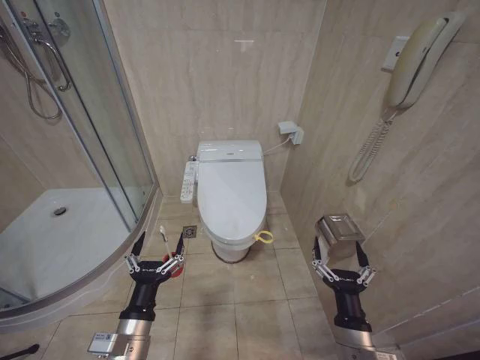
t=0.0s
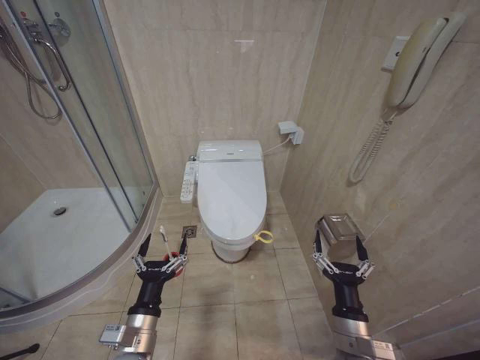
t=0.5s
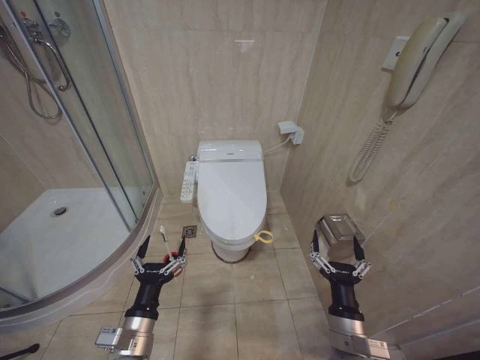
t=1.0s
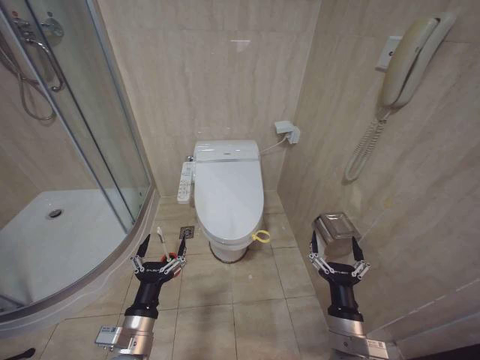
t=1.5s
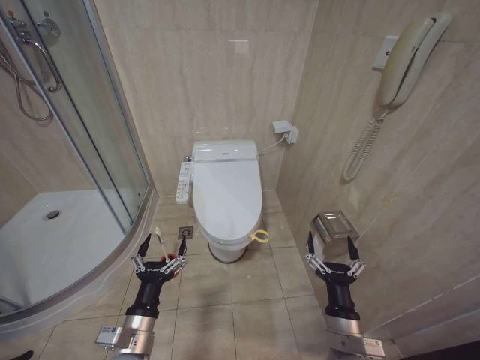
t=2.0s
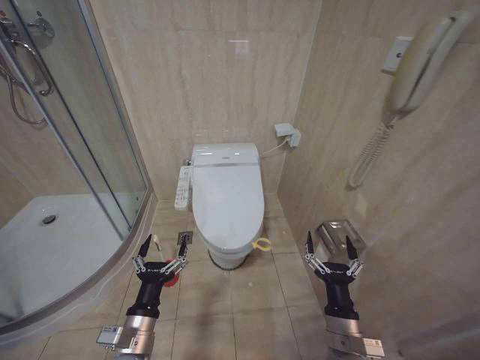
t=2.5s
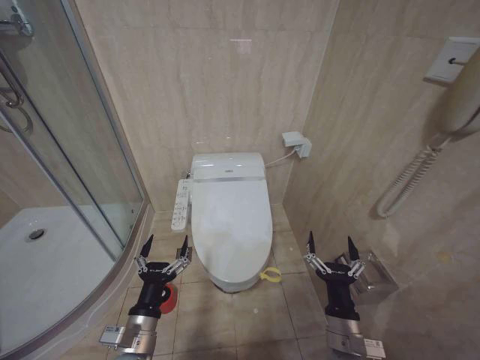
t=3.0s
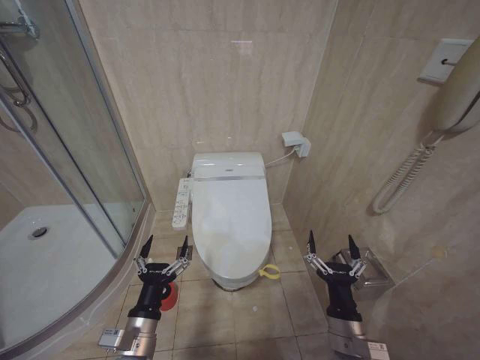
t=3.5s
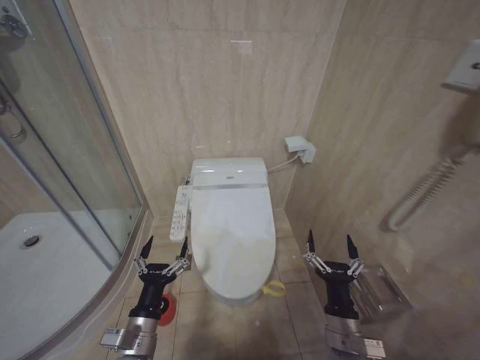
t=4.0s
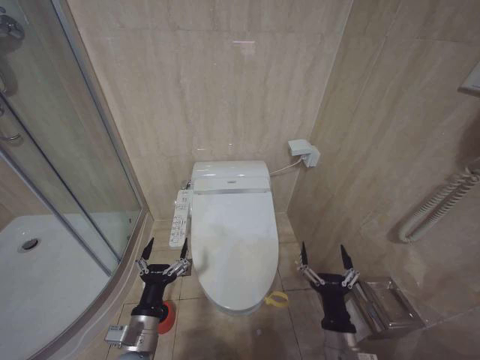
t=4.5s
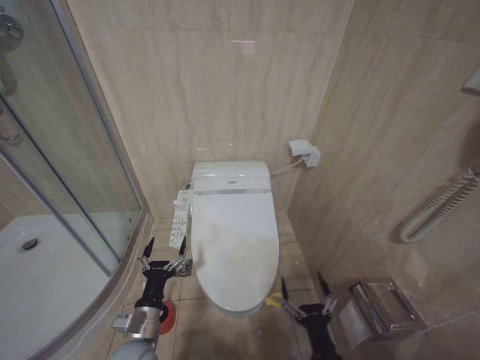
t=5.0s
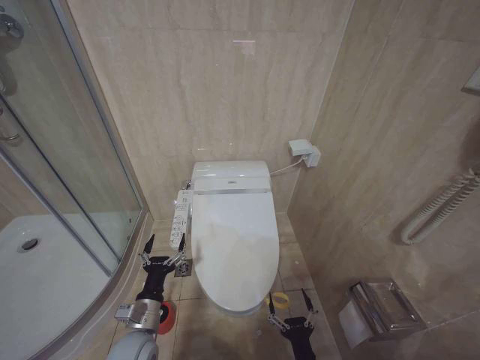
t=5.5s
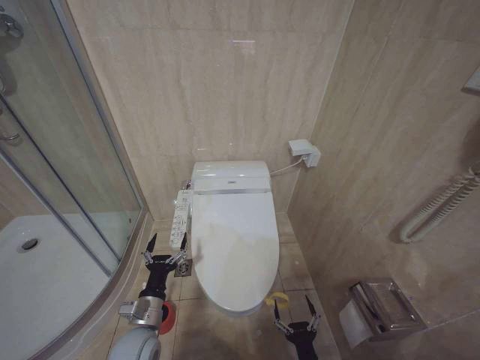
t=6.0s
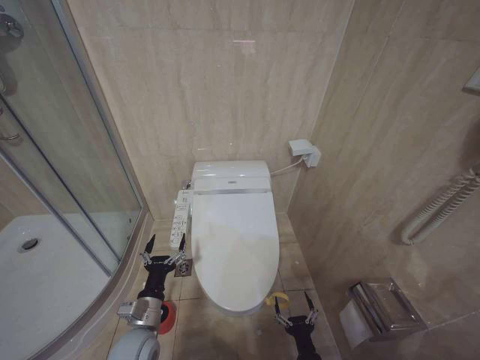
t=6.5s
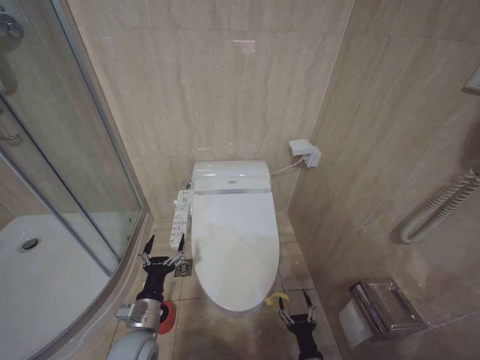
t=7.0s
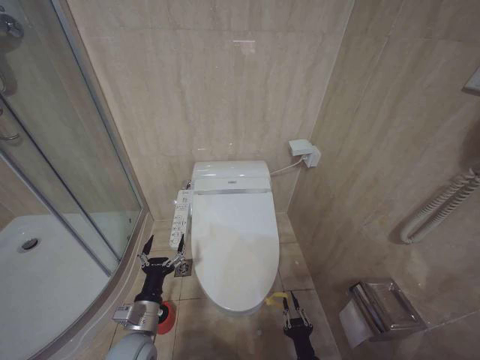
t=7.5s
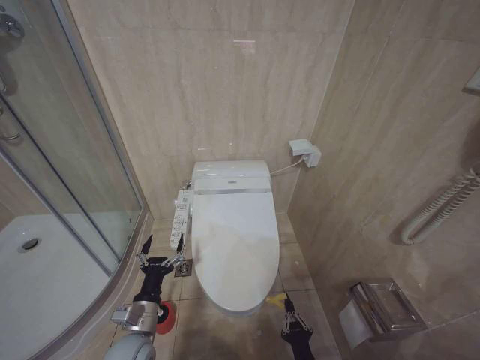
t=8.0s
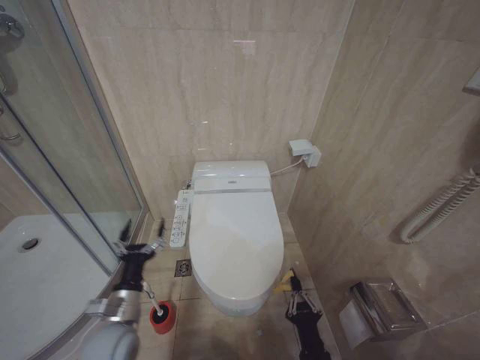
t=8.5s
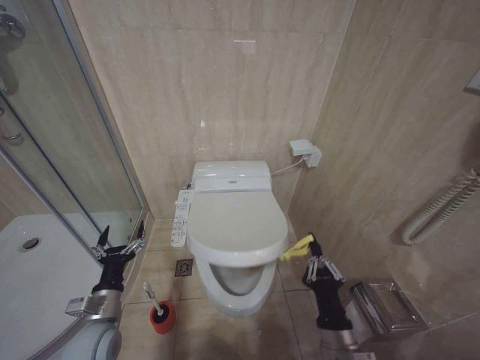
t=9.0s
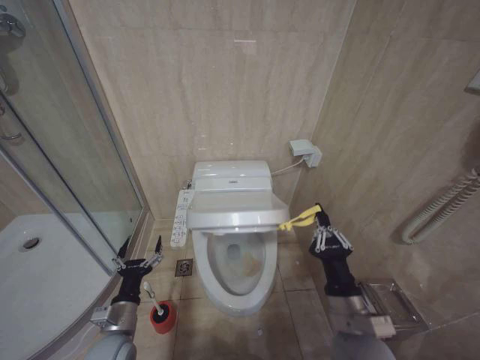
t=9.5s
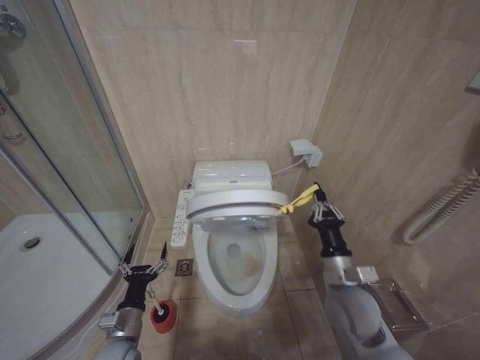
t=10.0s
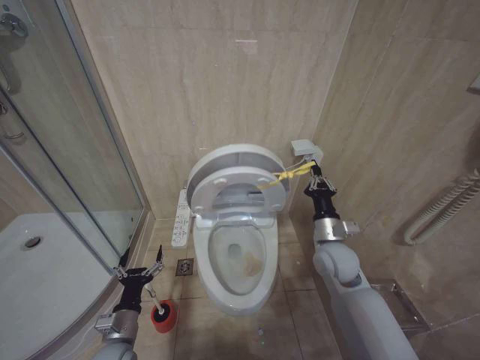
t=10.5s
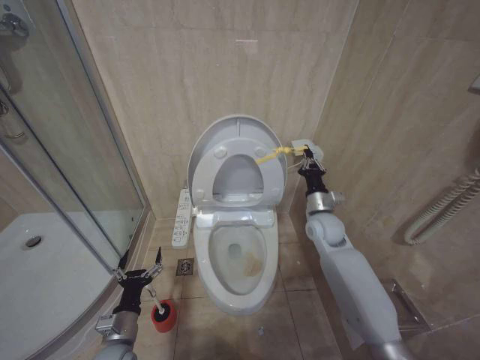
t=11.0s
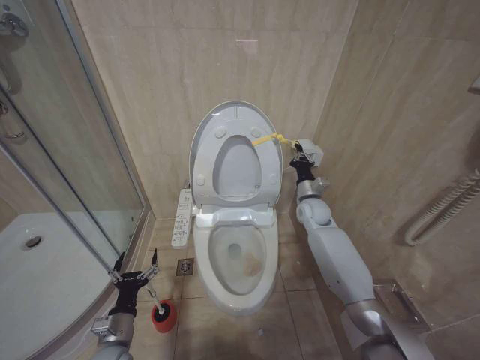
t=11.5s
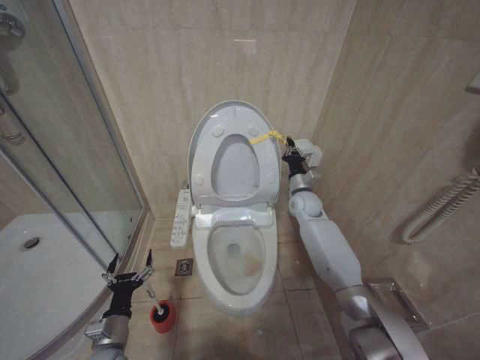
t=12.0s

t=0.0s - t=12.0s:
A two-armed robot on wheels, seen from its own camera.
Task of the whole recording: Open the toilet lid, clean the toilet bowl with a toilet brush, close the toilet lid, and flush.
t=4.0s - t=6.0s: The left gripper travels forward and downward by some 10 cm; the right gripper travels downward and backward by approximately 15 cm.
t=6.0s - t=8.0s: The right gripper closes its fingers.
t=8.0s - t=10.0s: The right gripper shifts roughly 30 cm upward and forward.
t=10.0s - t=12.0s: The right gripper is displaced forward by some 30 cm.

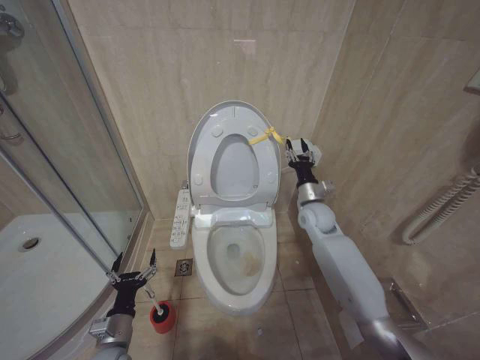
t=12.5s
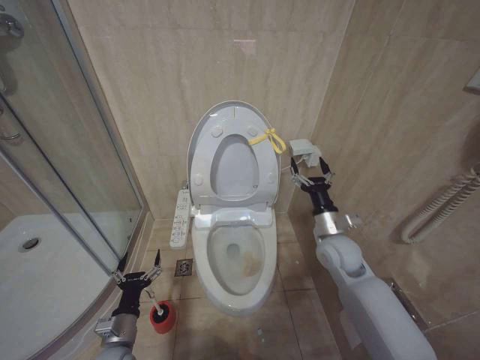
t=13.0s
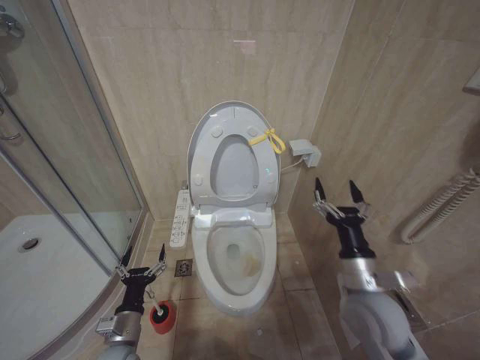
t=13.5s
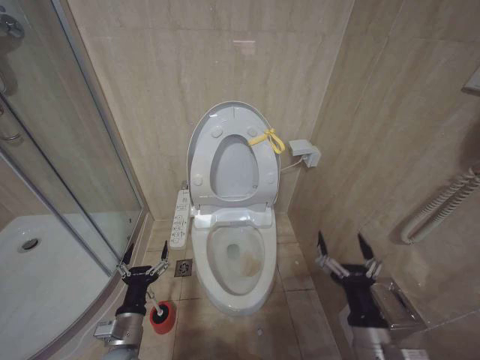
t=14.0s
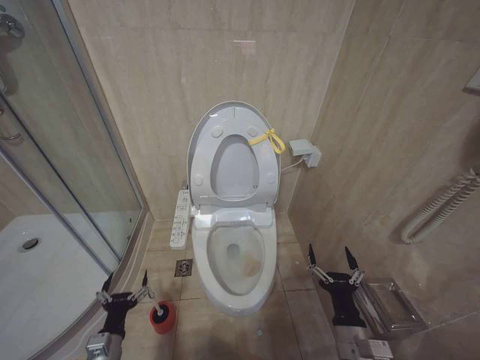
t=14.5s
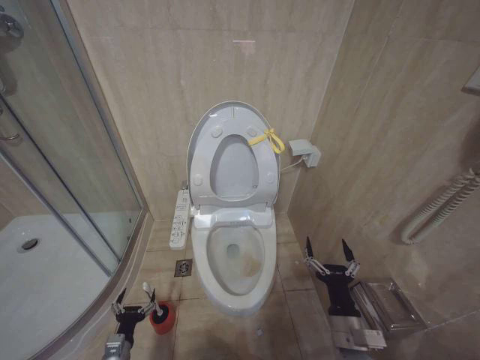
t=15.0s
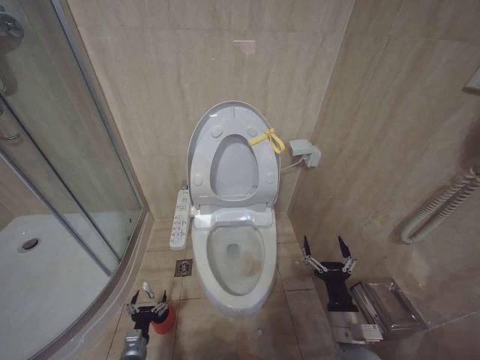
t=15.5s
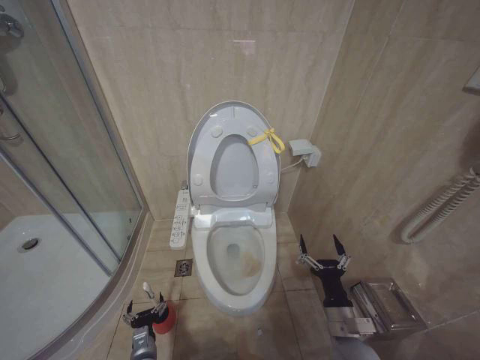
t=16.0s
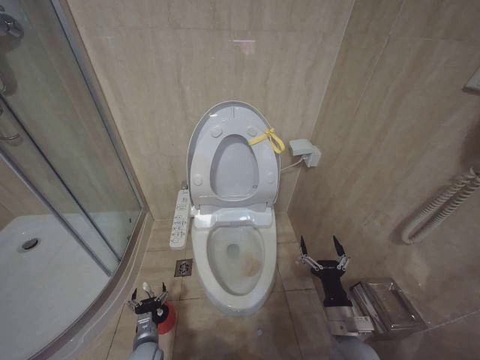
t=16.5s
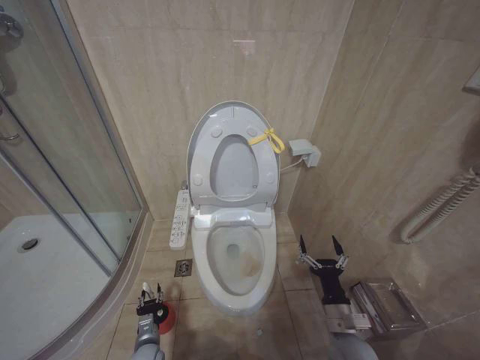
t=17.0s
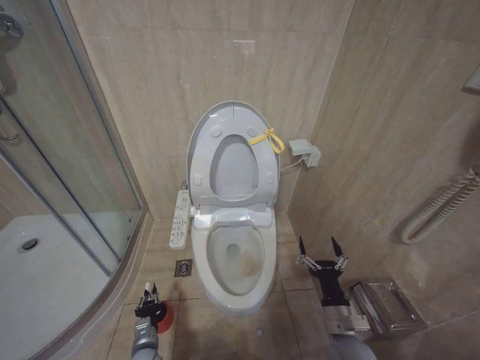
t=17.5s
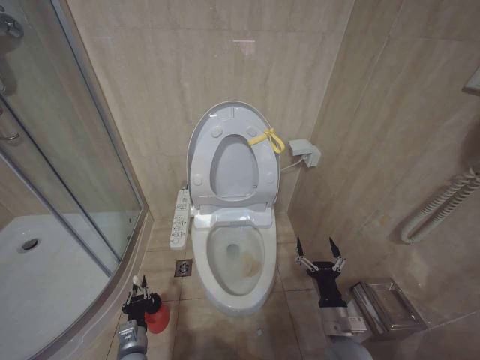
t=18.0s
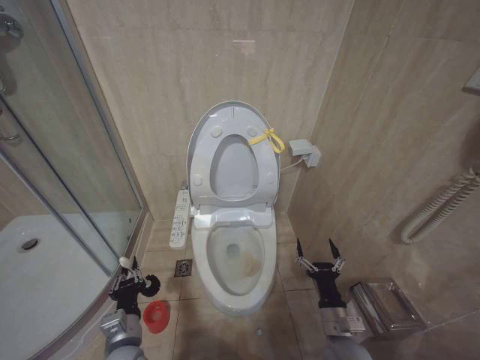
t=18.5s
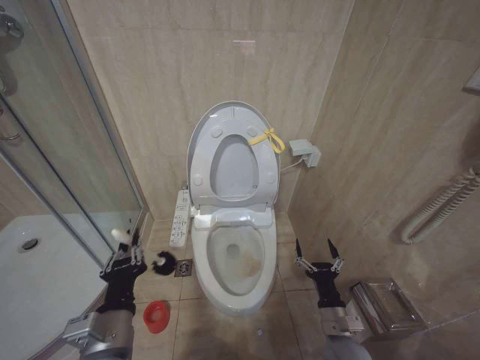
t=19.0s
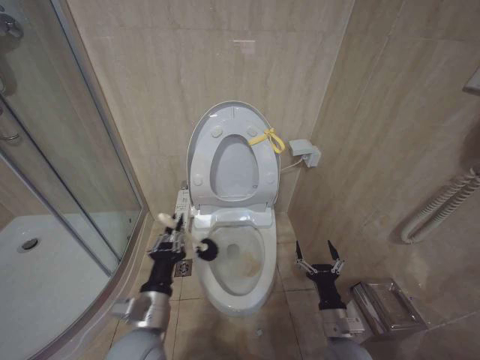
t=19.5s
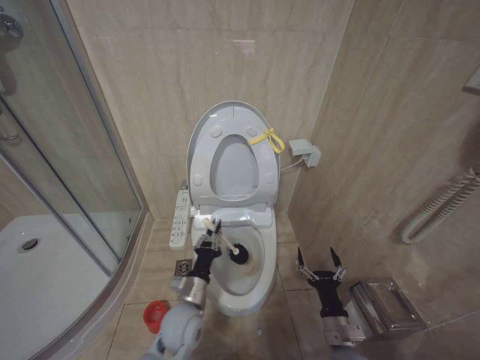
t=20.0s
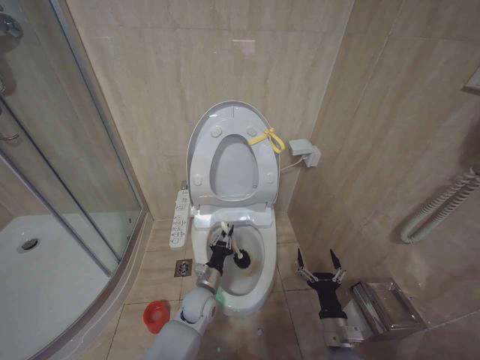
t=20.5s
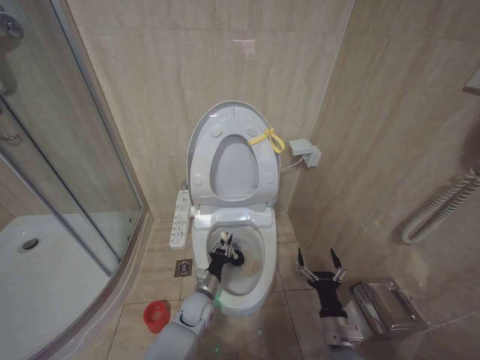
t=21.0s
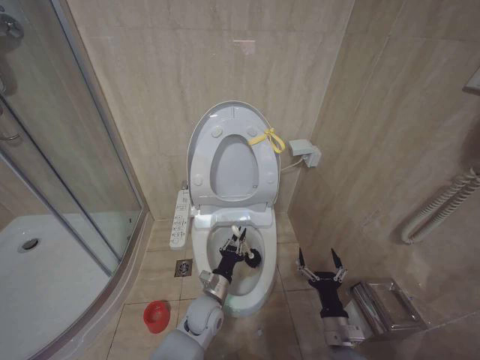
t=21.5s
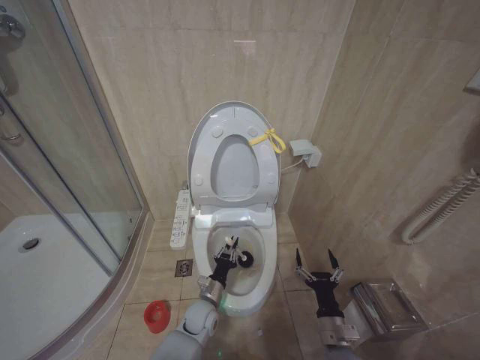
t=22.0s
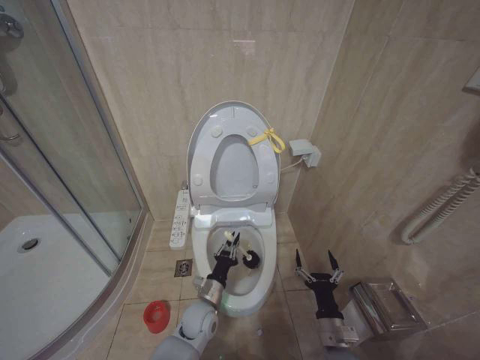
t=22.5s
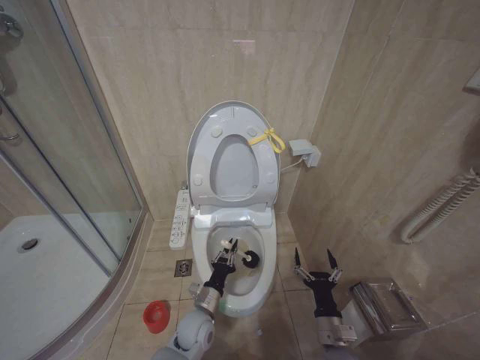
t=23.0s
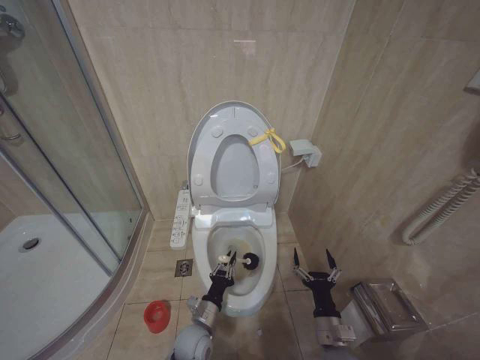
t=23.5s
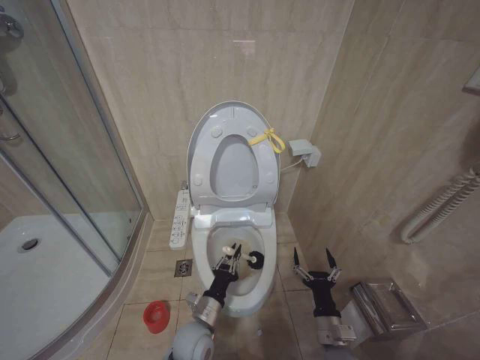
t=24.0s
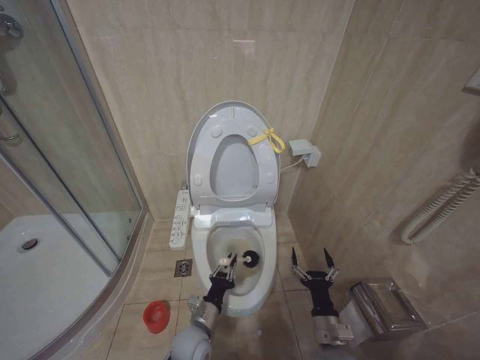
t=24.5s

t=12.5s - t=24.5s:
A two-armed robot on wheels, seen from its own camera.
Task of the whole recording: Open the toilet lid, clean the toilet bowl with a toilet brush, close the toilet lid, and flush.
t=12.5s - t=14.5s: The right gripper goes about 35 cm backward and downward, and opens.
t=14.5s - t=16.5s: The left gripper goes roughly 15 cm downward and forward. The right gripper shifts approximately 5 cm forward.
t=16.5s - t=18.5s: The left gripper heads upward, covering some 20 cm, and closes its fingers.
t=18.5s - t=20.5s: The left gripper moves forward and to the right, about 20 cm.
t=20.5s - t=22.5s: The left gripper swings up and down, some 5 cm each way, with 3 reversals.
t=22.5s - t=24.5s: The left gripper travels backward by about 5 cm.

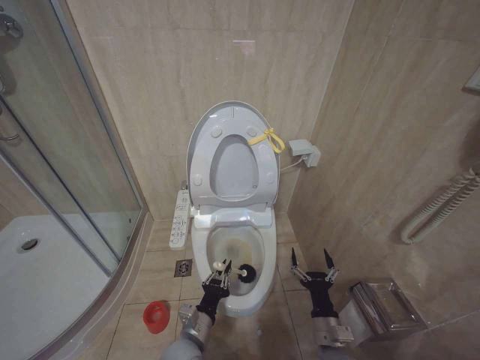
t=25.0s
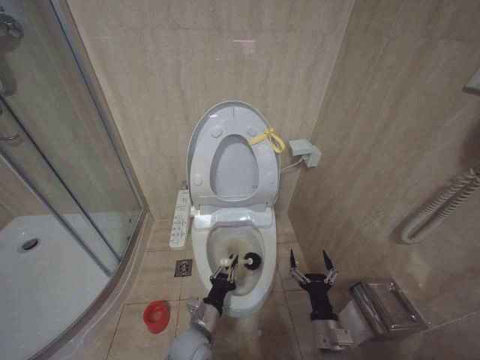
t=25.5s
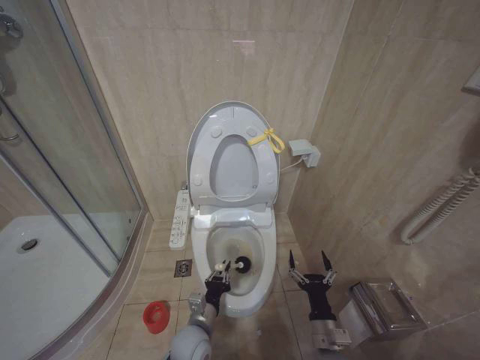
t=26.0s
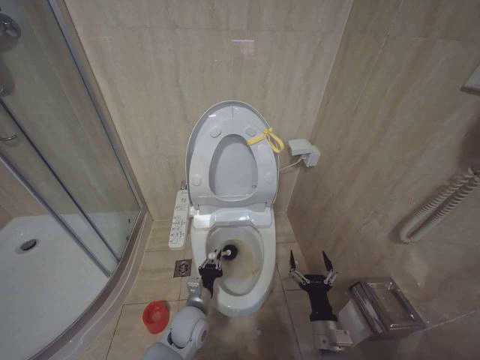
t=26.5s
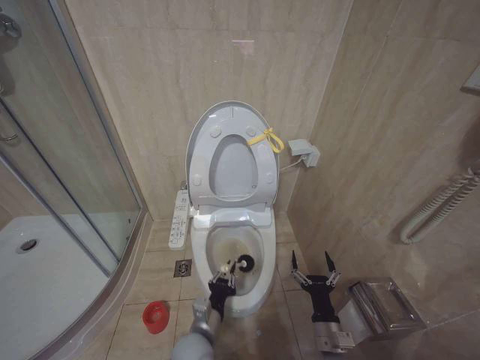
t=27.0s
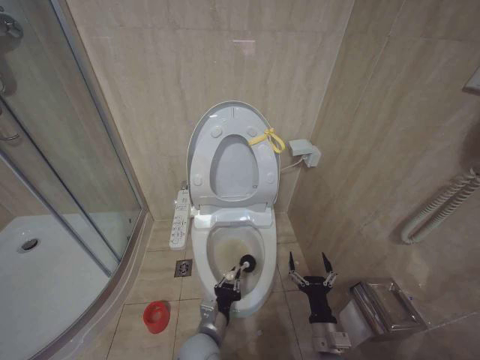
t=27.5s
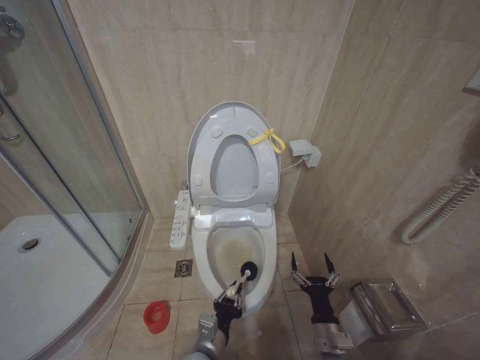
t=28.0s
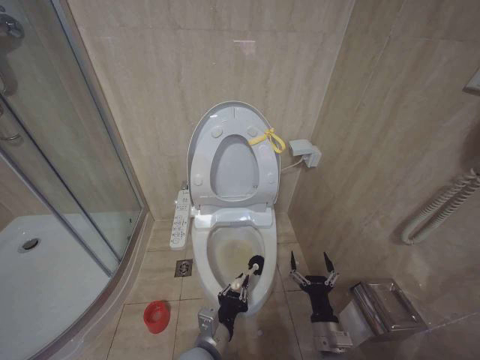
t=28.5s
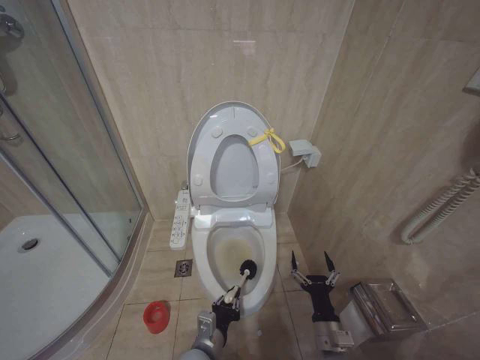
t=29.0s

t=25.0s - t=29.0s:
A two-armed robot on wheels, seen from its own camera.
Task of the whole recording: Open the toilet lid, clean the toilet bowl with a toilet brush, close the toilet lid, and flush.
t=25.0s - t=27.0s: The left gripper goes forward and returns, roughly 10 cm each way.
t=27.0s - t=29.0s: The grippers make only small movements.
